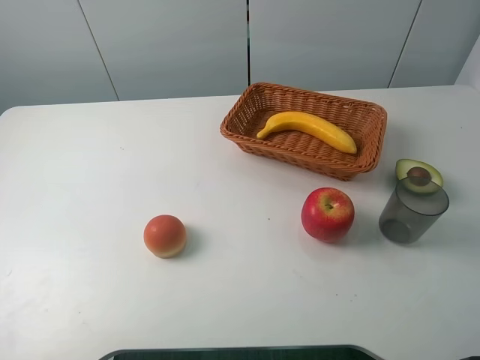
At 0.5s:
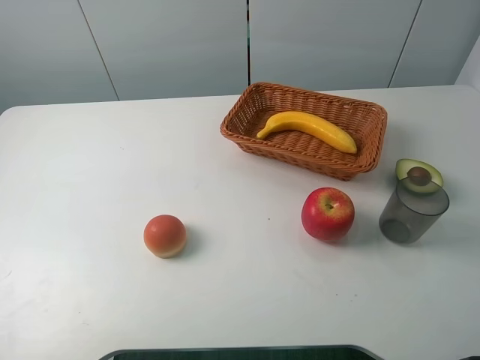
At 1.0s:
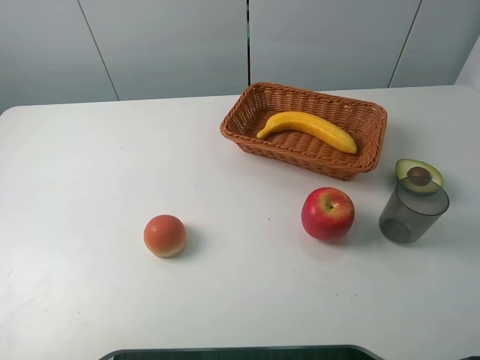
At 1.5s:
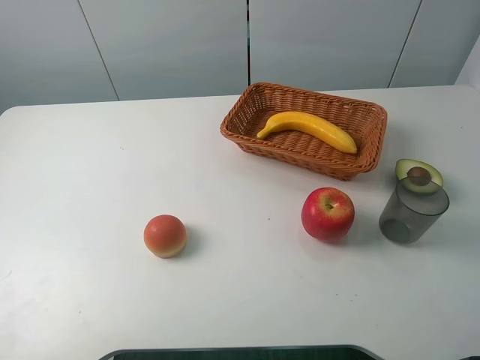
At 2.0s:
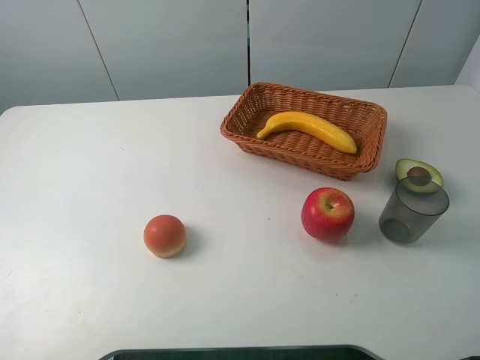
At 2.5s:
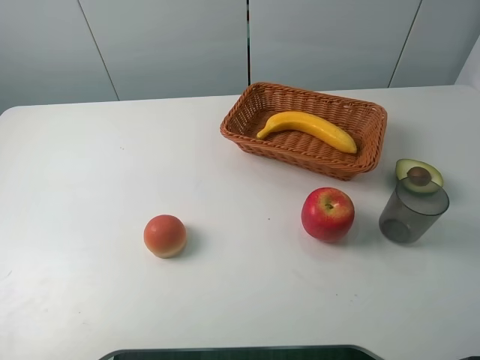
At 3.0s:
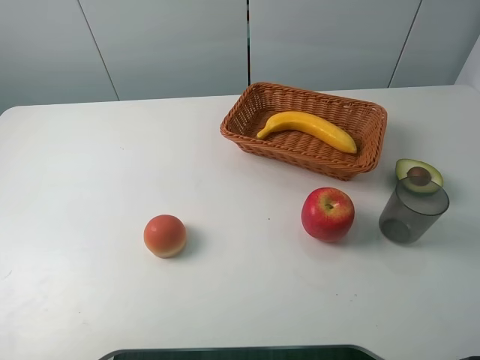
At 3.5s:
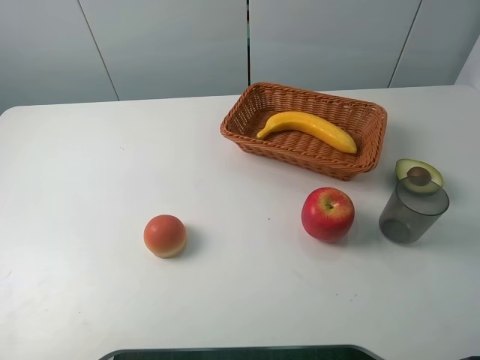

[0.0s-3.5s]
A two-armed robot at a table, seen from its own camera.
Task of the whole recording: randomly pick up an item from the table and put it in the basket.
0.0s to 3.5s: The two grippers keep their place.
